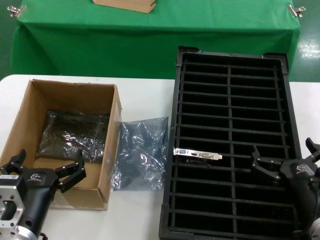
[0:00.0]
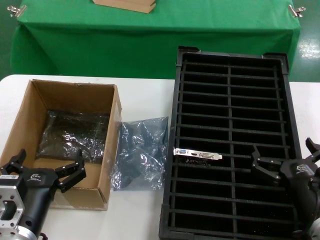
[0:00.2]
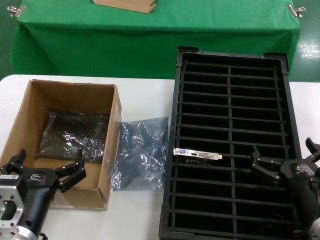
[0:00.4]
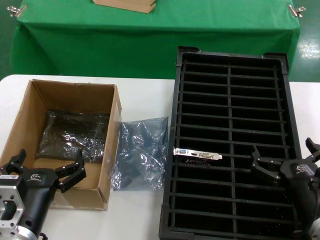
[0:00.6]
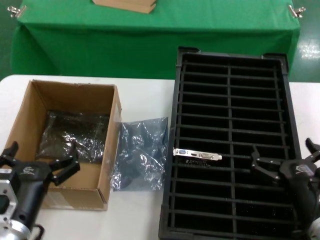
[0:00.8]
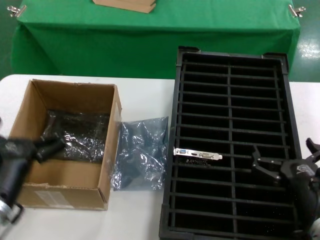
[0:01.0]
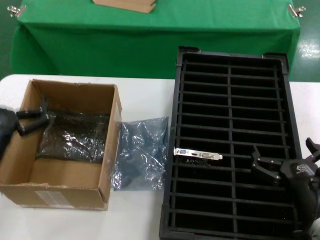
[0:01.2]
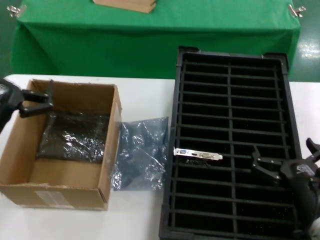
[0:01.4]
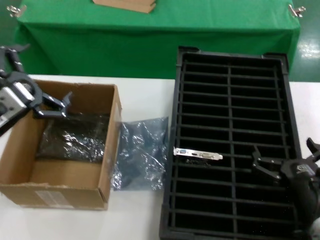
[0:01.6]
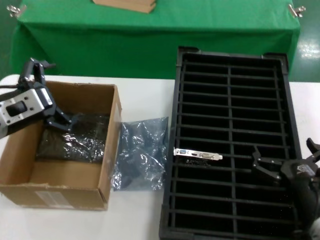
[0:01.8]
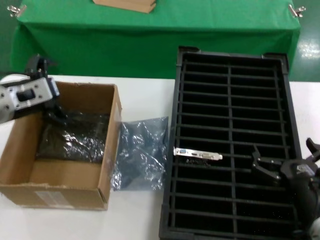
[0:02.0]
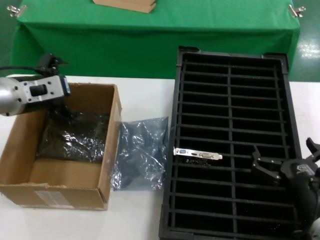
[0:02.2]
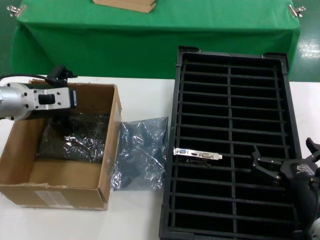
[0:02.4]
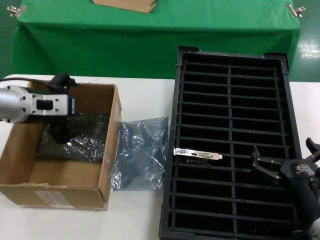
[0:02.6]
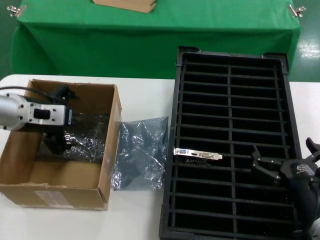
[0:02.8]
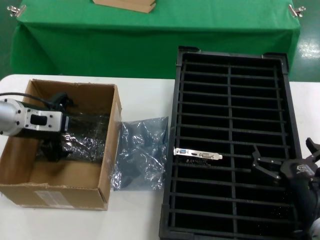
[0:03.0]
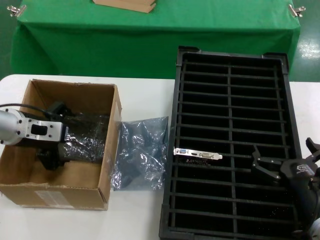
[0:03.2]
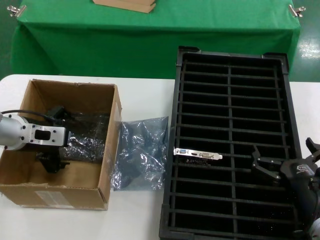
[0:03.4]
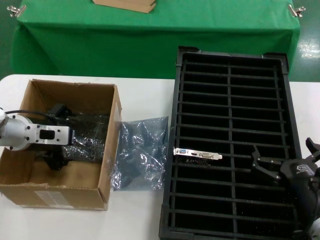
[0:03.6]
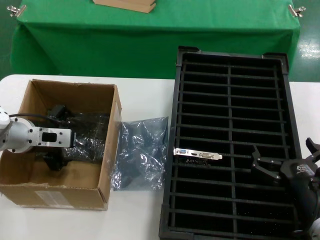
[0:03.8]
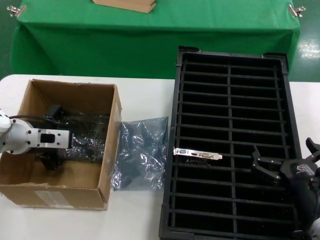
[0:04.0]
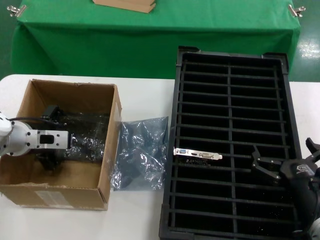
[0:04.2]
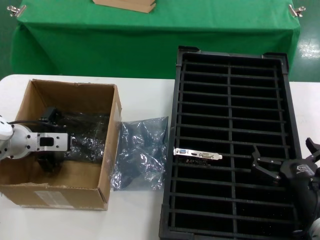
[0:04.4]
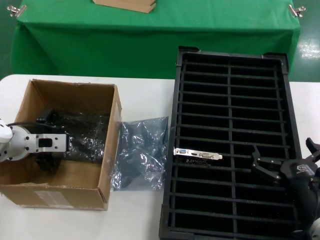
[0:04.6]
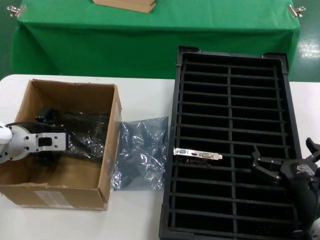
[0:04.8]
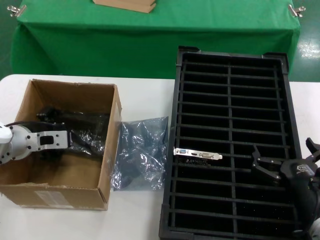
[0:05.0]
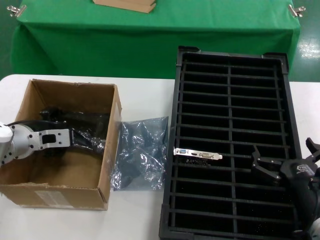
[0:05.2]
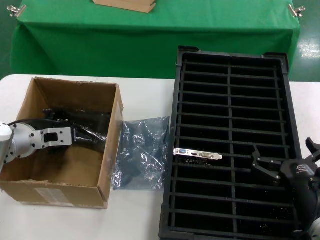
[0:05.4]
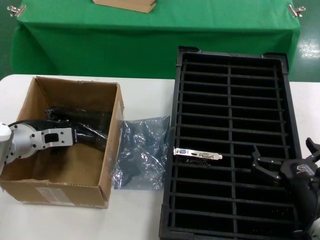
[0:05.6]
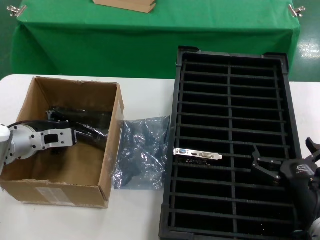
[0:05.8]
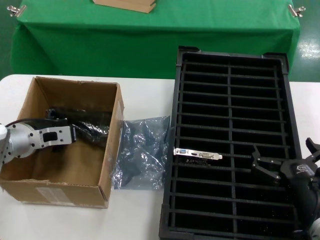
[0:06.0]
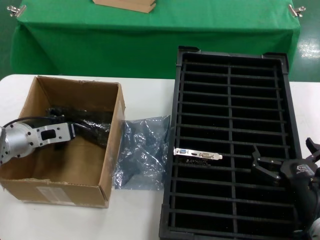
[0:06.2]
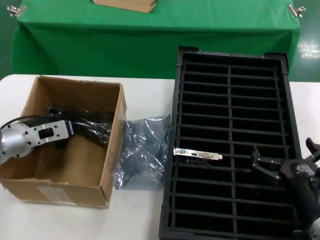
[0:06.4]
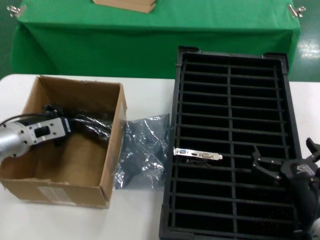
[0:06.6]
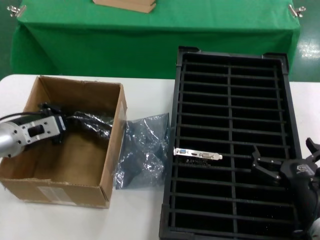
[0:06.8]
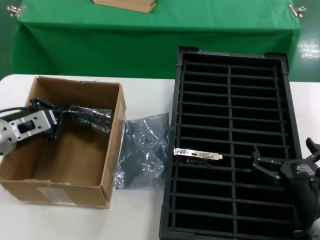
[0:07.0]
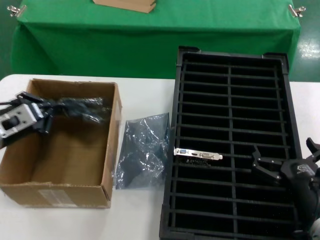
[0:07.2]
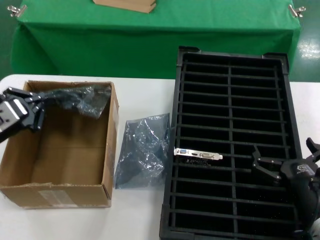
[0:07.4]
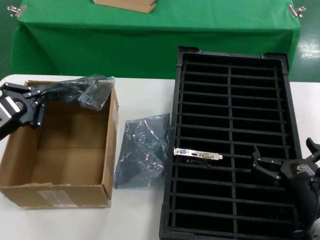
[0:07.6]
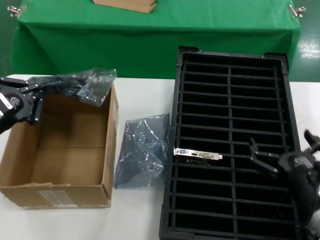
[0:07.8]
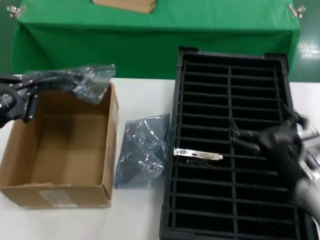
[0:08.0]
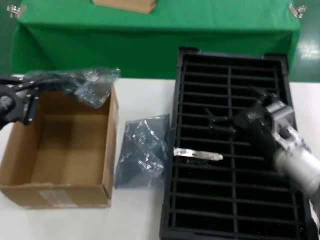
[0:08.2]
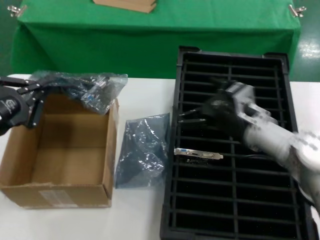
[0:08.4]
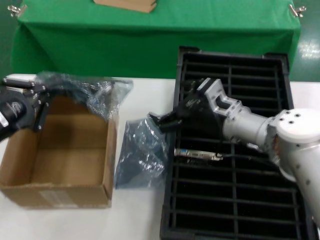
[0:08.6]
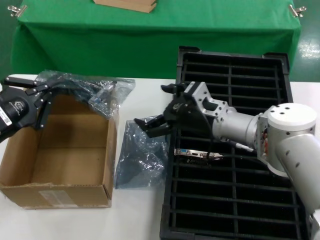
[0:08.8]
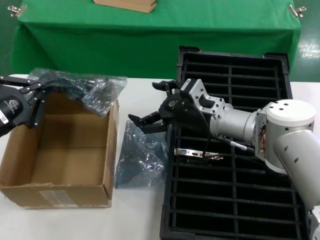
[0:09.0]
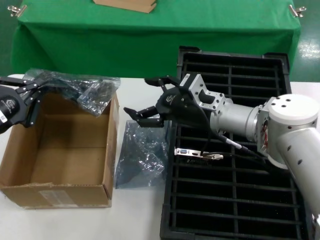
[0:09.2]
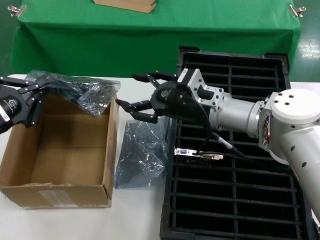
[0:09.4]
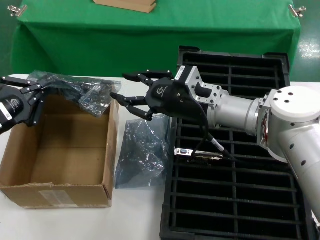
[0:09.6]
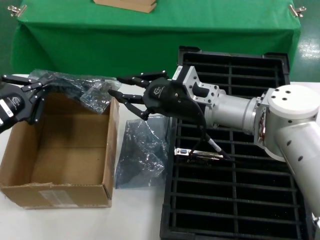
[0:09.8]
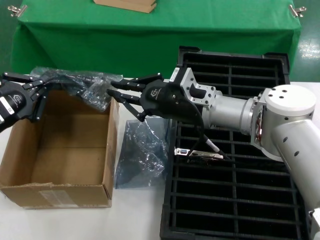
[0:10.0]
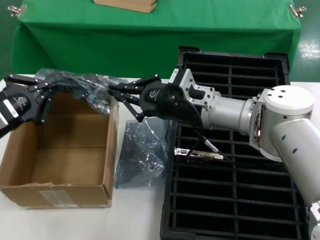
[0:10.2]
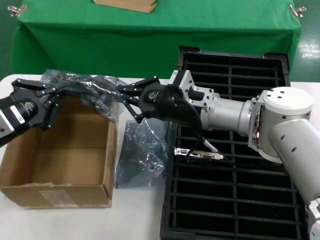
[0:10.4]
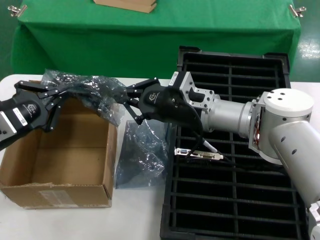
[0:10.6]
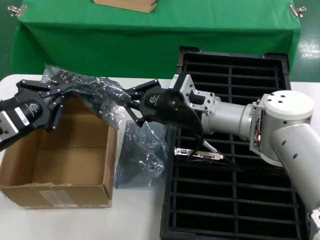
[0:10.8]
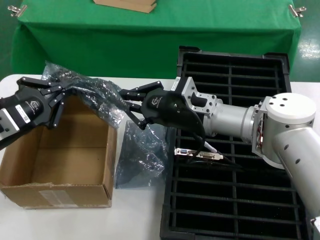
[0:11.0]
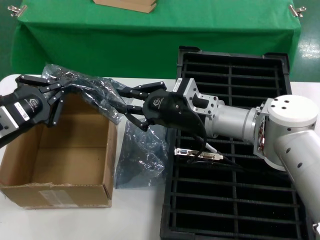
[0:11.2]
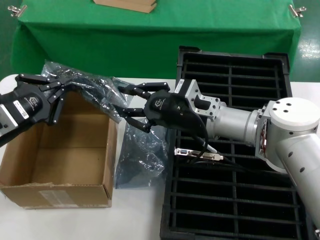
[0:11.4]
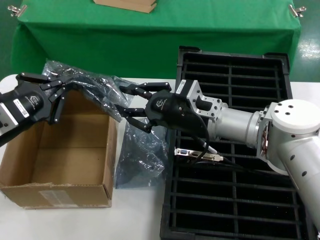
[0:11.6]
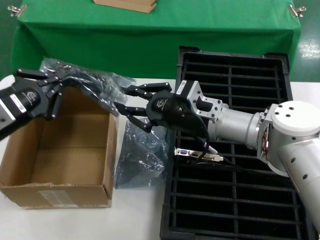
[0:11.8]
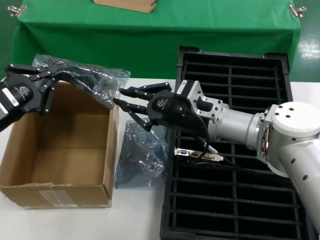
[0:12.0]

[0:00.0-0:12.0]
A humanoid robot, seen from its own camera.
Task of the whole recording: take out graphics card from box remove packaging put into black container.
Step, 0:00.0 to 0:05.8: Grasp the bag.
Step, 0:06.2 to 0:08.0: Lift the bag.
0:00.0 to 0:01.6: The left hand shifts approximately 20 cm upward, forward and to the left.
0:01.6 to 0:03.0: The left hand goes about 15 cm forward.
0:03.0 to 0:04.4: The left hand shifts approximately 5 cm downward.
0:04.4 to 0:06.0: The hands move only a little.
0:06.0 to 0:07.6: The left hand travels backward and upward by approximately 10 cm.
0:07.6 to 0:09.0: The left hand goes approximately 5 cm backward. Meanwhile the right hand is displaced forward, to the left and upward by about 25 cm.
0:09.0 to 0:12.0: There are only small adjustments of the hands.

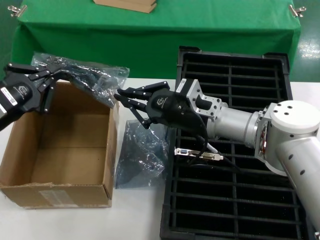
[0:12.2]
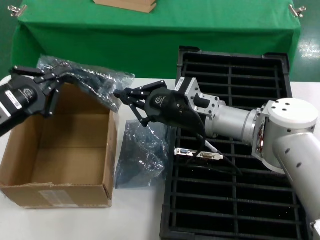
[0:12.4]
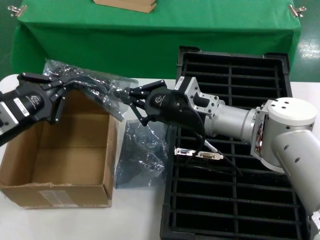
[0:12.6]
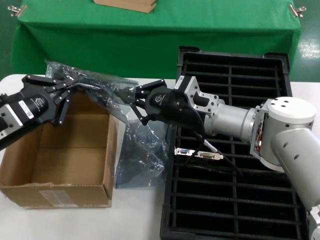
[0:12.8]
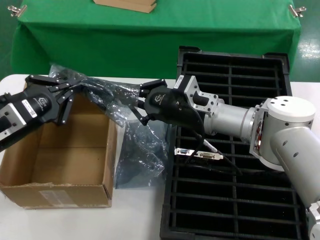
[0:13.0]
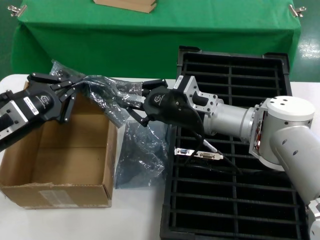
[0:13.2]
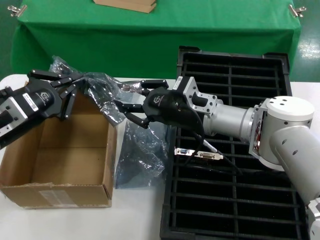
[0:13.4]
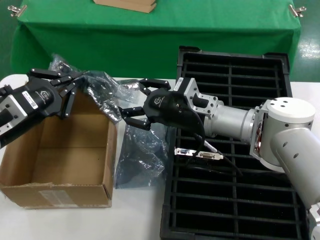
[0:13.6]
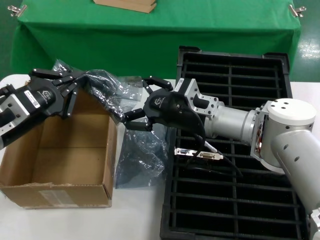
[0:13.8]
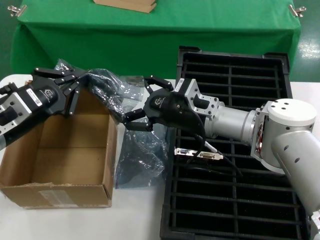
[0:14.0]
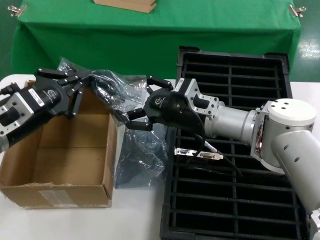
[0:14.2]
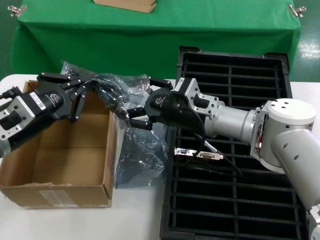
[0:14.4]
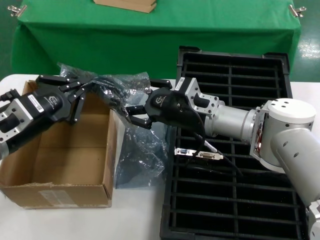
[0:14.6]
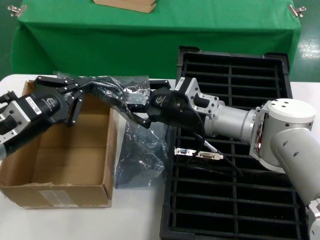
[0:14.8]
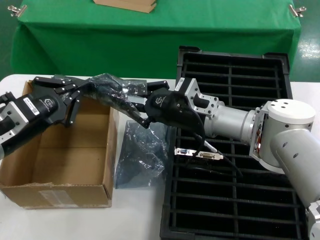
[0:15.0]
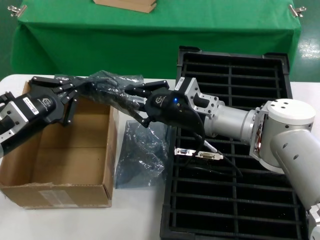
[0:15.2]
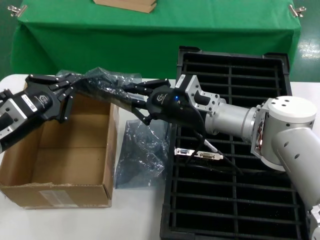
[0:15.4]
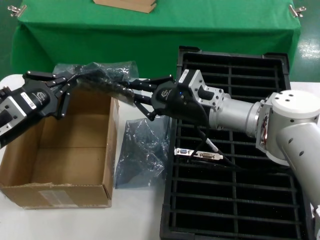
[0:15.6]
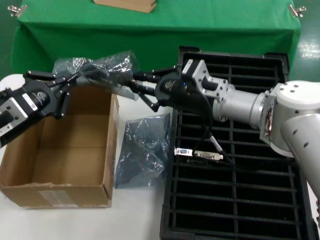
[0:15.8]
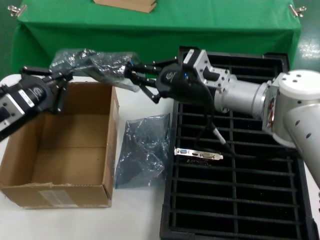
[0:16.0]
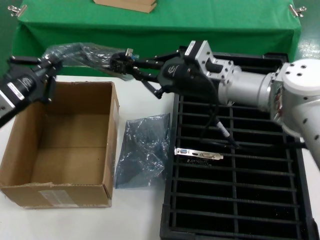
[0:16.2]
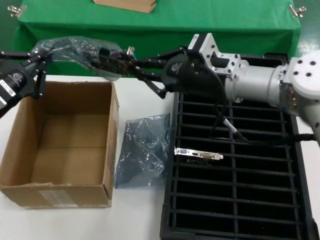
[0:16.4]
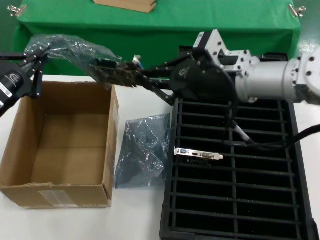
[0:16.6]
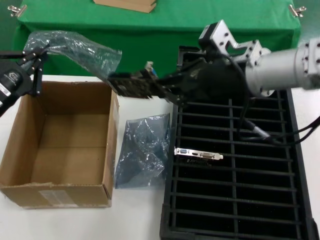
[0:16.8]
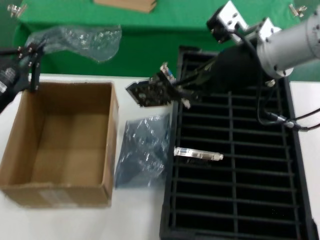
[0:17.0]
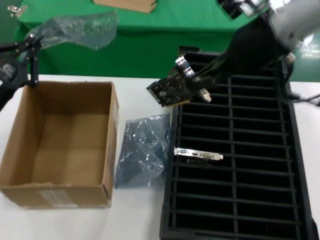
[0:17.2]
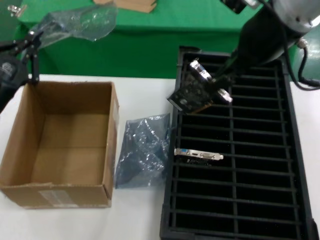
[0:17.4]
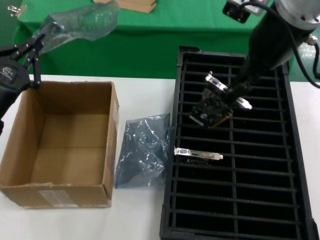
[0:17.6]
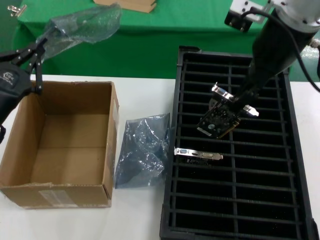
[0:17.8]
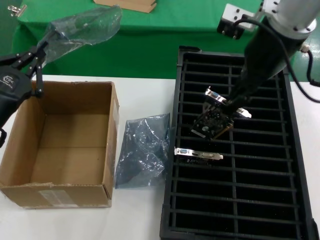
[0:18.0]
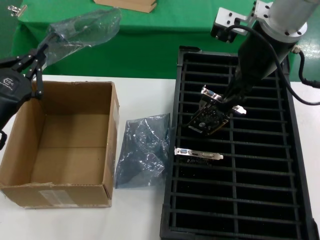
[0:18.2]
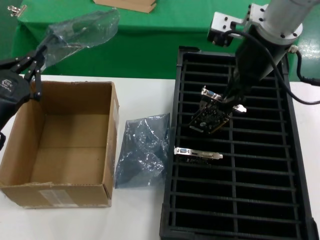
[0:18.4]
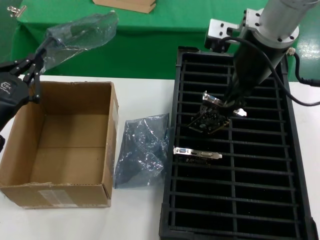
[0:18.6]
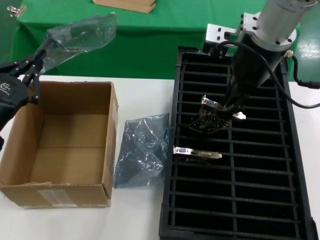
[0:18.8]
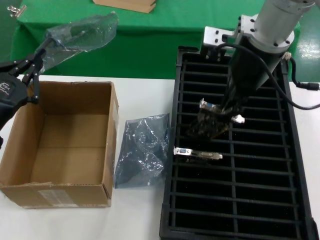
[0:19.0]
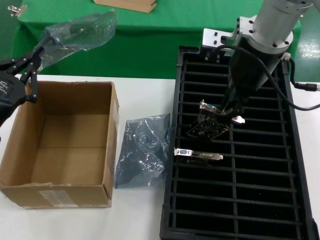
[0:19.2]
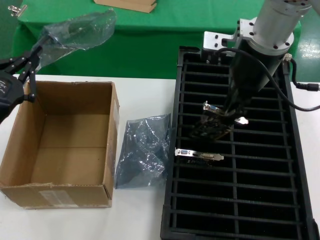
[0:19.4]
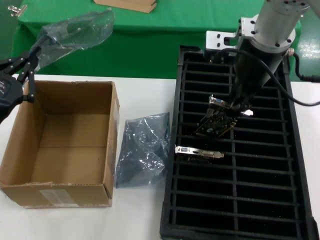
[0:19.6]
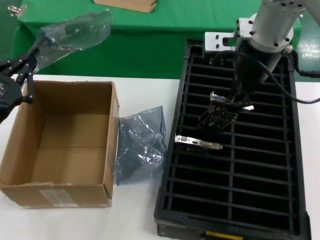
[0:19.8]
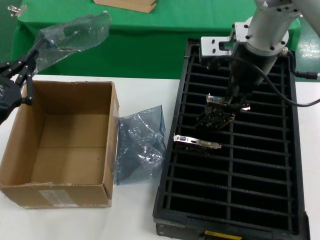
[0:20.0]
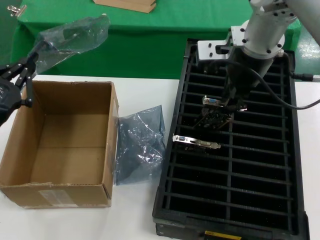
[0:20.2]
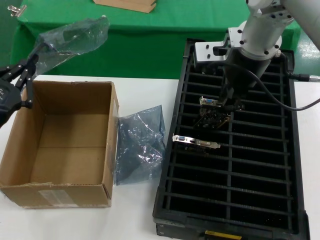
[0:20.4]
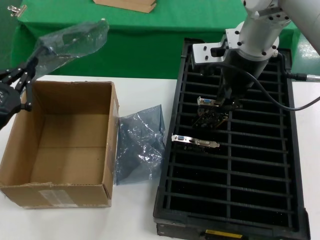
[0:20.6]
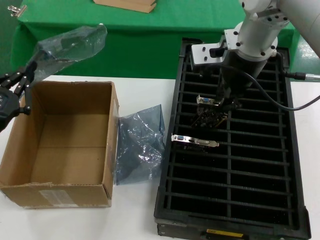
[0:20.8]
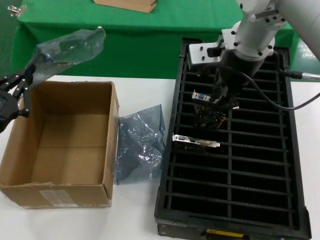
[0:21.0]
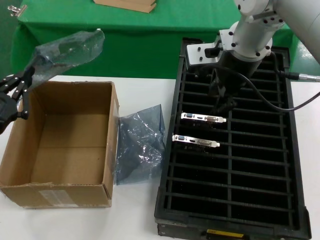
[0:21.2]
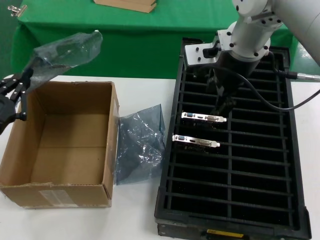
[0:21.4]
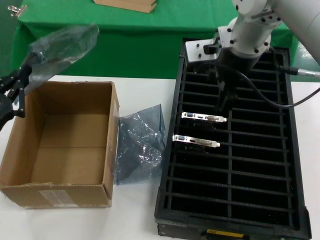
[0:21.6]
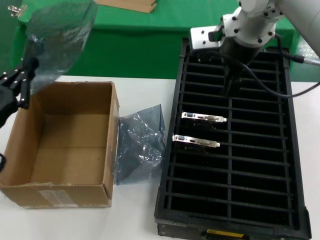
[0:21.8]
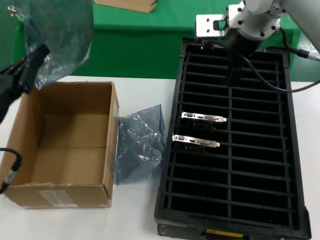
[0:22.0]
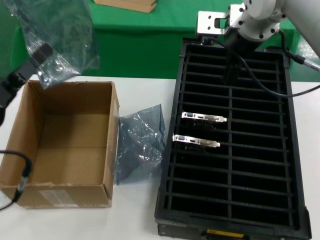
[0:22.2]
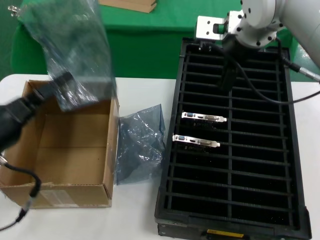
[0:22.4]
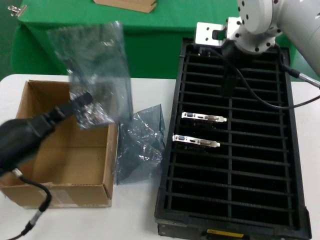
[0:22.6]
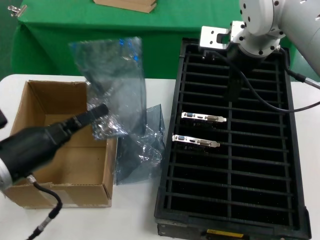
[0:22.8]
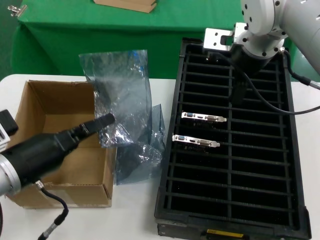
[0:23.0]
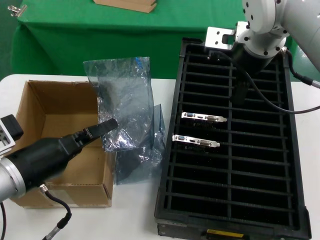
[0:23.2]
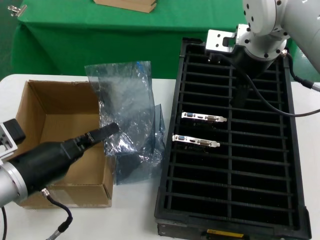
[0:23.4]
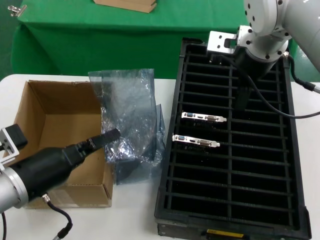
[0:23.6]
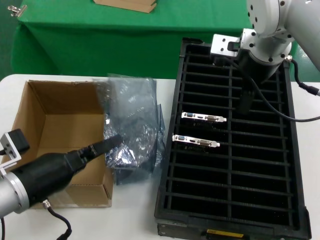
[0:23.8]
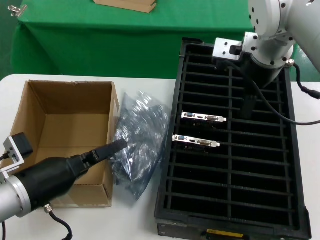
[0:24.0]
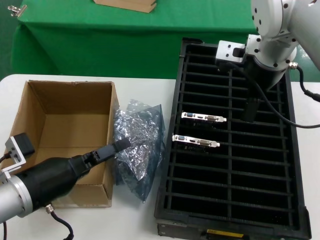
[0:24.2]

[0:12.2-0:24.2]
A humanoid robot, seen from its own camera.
Task of the whole recording: take out graphics card from box remove packaging put into black container.
Step, 0:12.2 to 0:16.8: Take out the hard disk of the bag.
Step, 0:17.0 to 0:21.4: Place the hard disk in the hard disk enclosure.
0:12.2 to 0:13.8: The hands stay close to where they were, moving slightly.
0:13.8 to 0:15.2: Both hands stay put.
0:15.2 to 0:16.6: The left hand shifts by about 5 cm, while the right hand moves upward, roughly 10 cm.
0:16.6 to 0:18.2: The right hand is displaced upward by approximately 15 cm.
0:21.2 to 0:22.6: The left hand shifts by roughly 5 cm.
0:22.6 to 0:24.2: The left hand shifts by roughly 5 cm.
